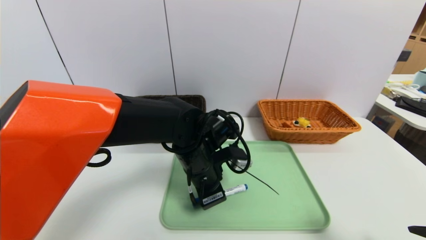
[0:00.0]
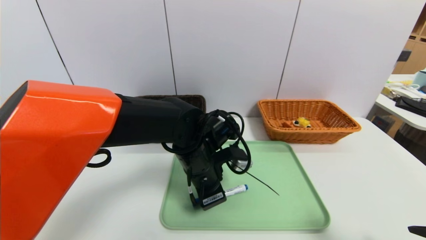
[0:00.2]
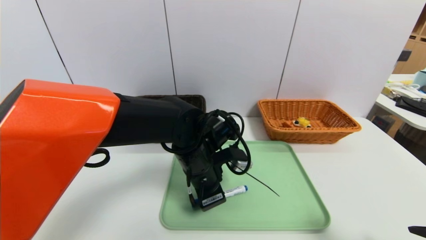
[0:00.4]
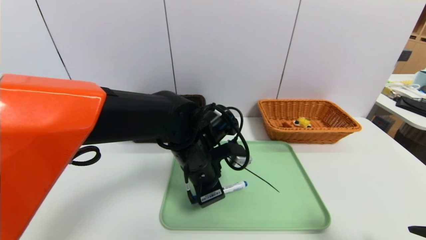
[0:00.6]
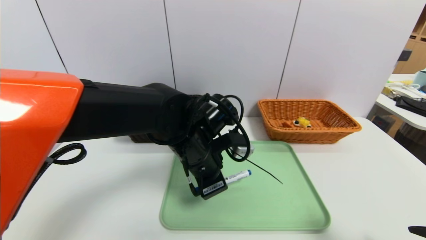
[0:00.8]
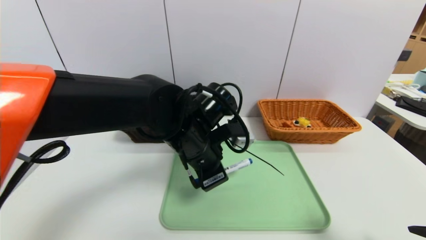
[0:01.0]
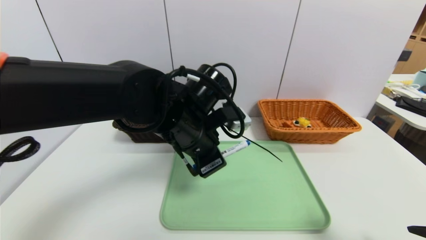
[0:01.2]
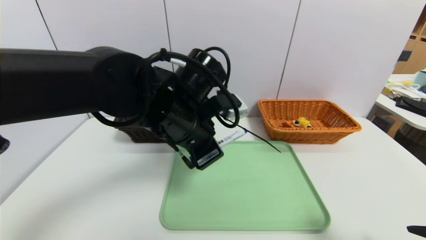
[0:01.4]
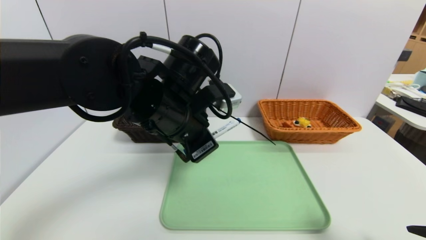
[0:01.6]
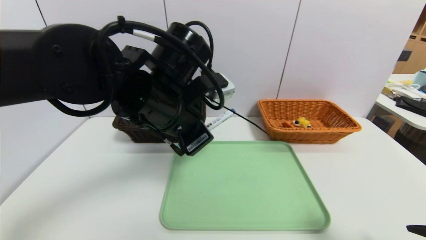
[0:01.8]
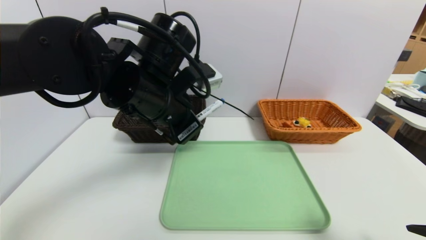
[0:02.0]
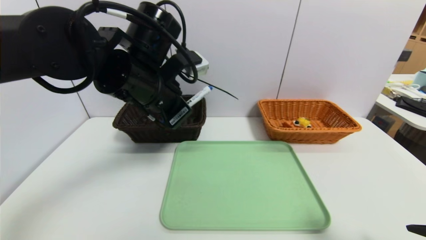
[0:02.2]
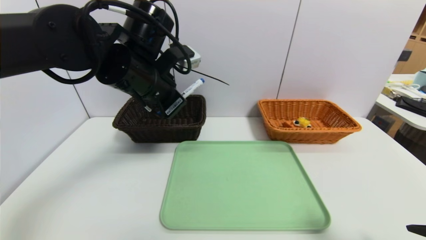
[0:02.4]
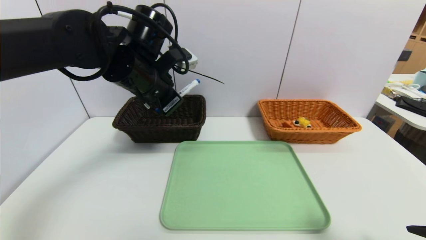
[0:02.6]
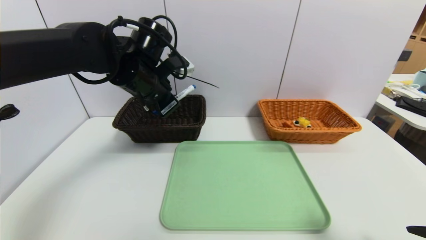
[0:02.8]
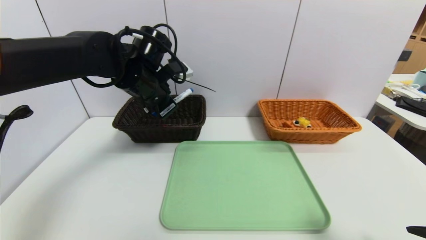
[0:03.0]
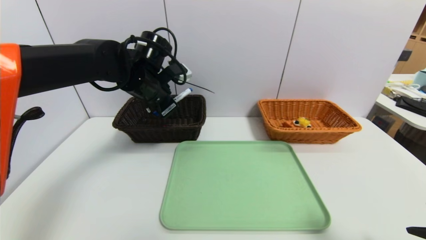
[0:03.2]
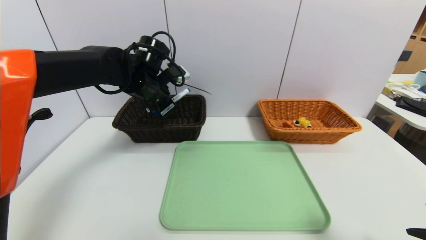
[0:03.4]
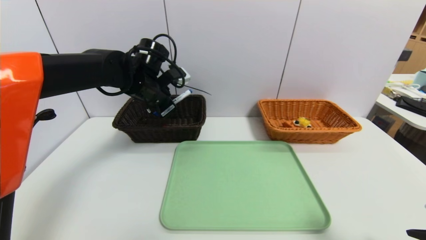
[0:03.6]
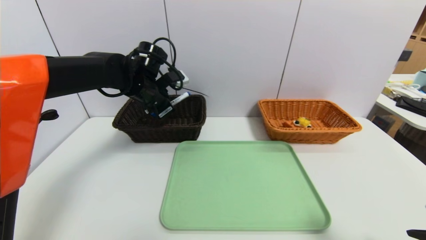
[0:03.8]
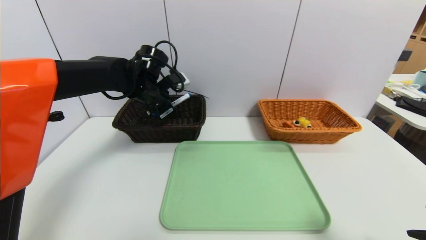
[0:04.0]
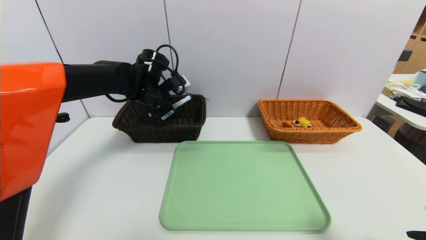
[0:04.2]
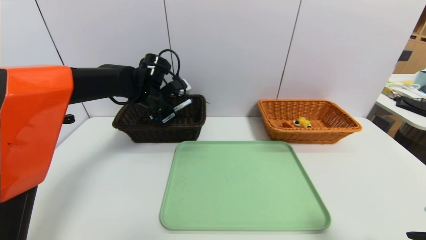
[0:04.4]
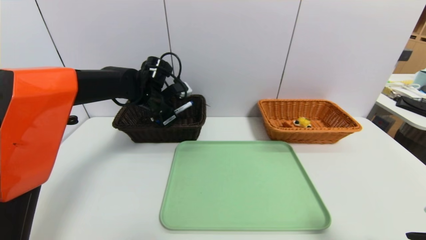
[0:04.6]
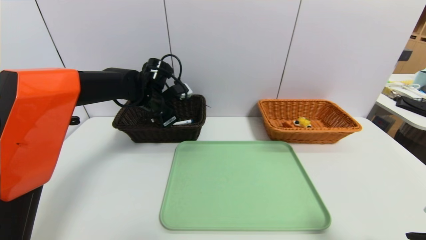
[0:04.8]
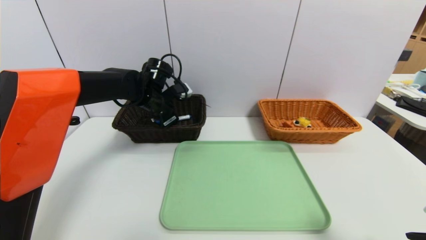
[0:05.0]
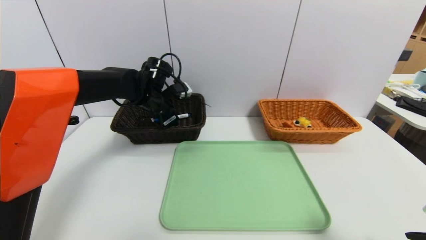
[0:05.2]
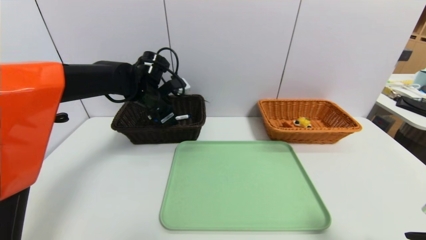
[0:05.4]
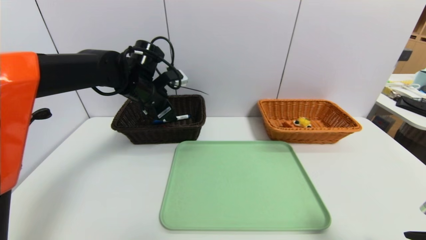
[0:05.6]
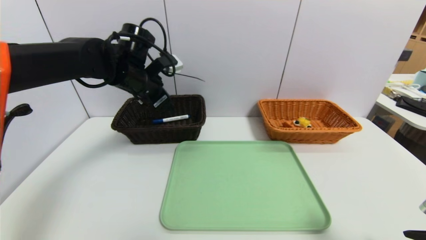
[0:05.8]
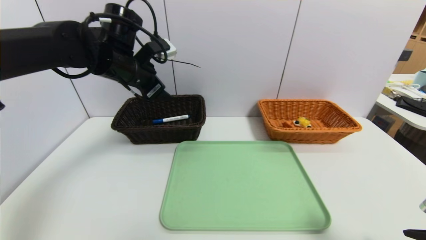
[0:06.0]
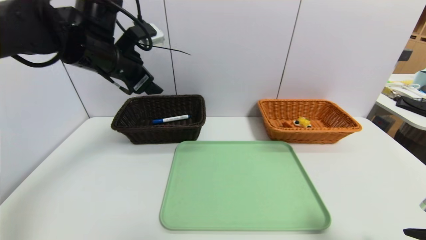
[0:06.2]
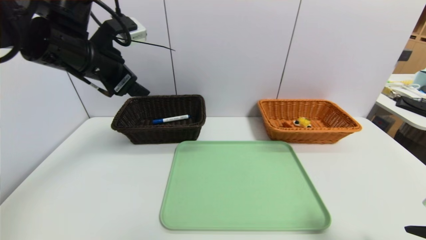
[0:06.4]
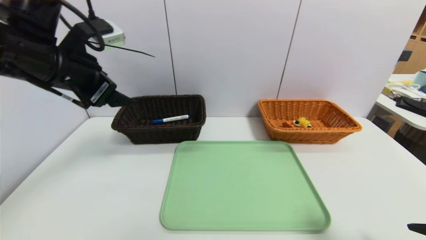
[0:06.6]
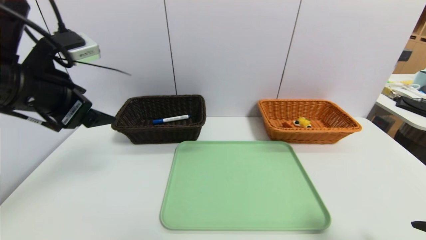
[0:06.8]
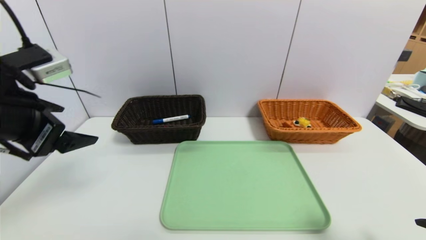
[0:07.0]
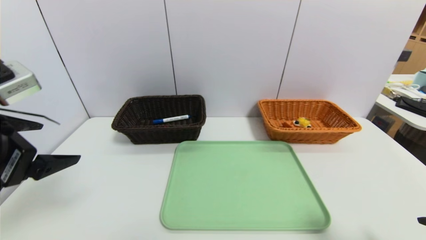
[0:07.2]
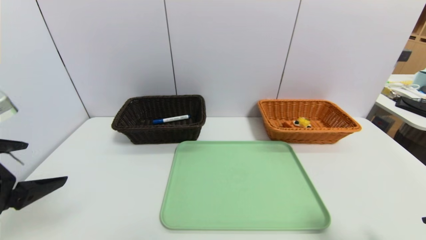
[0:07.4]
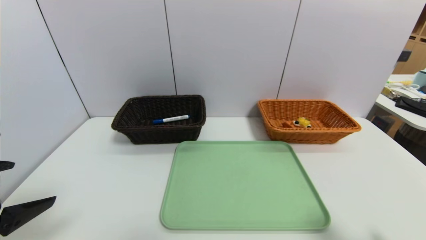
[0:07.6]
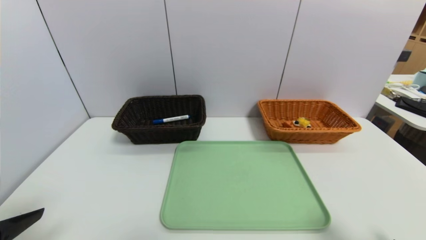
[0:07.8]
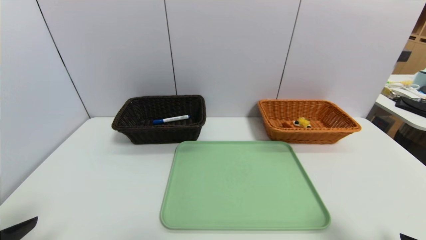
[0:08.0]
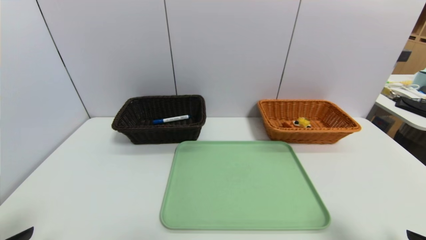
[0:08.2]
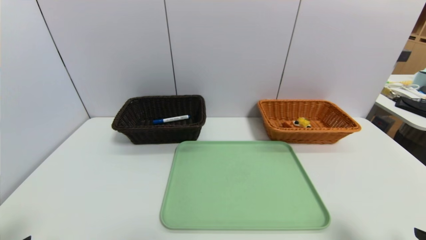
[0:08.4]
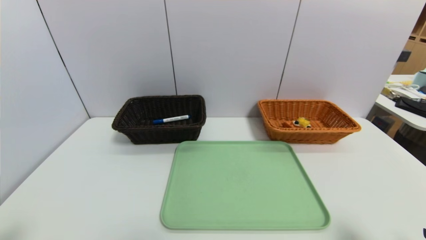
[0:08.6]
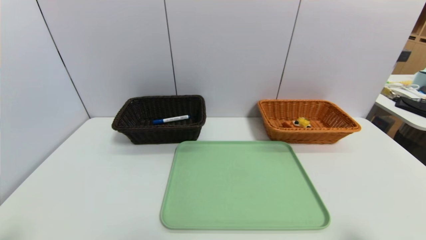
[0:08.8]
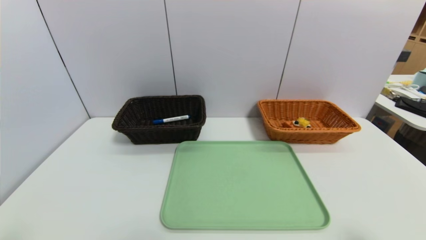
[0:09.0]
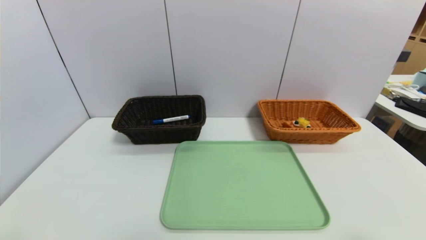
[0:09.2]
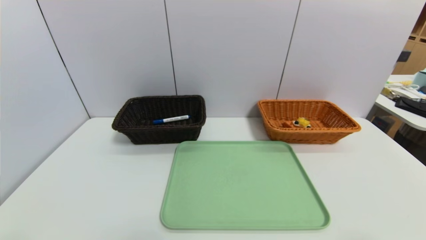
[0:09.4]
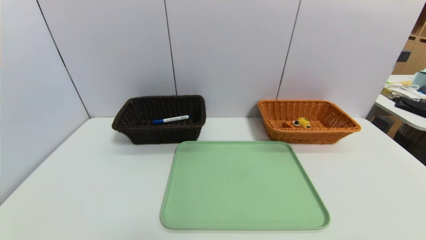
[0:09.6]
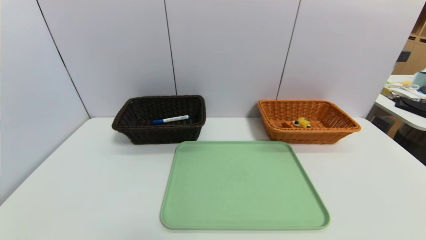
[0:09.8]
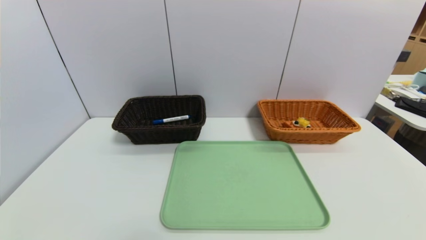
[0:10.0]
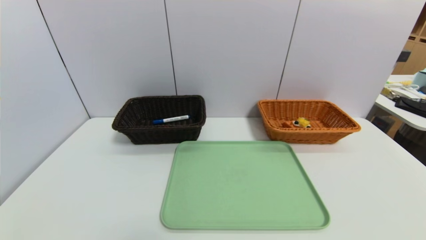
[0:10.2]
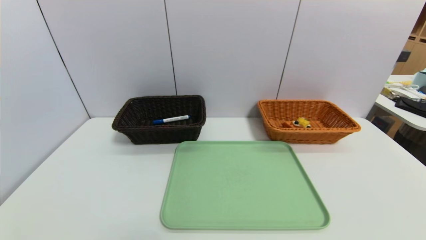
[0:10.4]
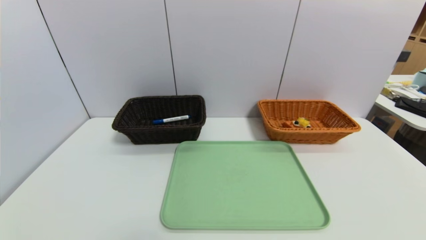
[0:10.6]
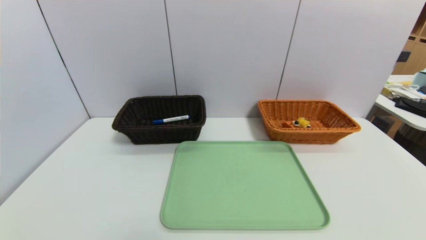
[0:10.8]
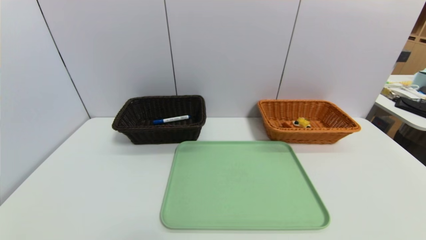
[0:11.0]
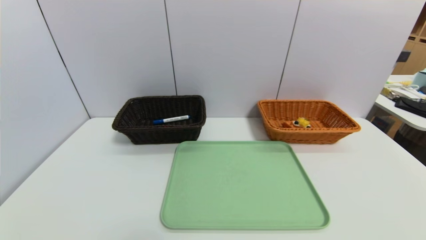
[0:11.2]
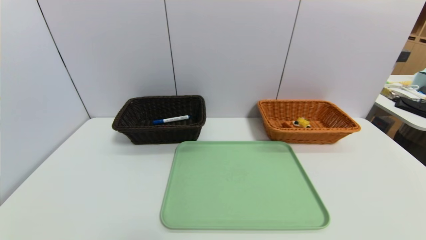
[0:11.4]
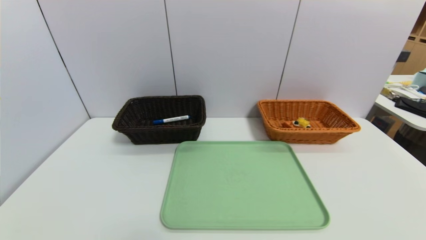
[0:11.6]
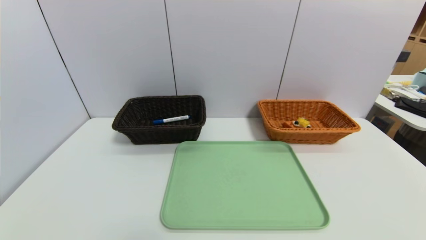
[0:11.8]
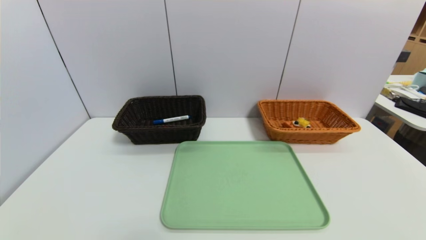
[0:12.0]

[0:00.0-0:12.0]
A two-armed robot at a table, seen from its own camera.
Task of the whole recording: place the food in the right basket with the right gripper, and place the non food items in the left basket with the left gripper.
Step, 0:00.0 to 0:05.4: Grasp the blue marker pen and put it in the left basket.
0:00.0 to 0:01.6: The left gripper goes roughly 10 cm upward.
0:01.6 to 0:03.0: The left gripper goes about 15 cm forward and to the left.
0:03.0 to 0:04.4: The left gripper is displaced forward and downward by roughly 10 cm.
0:04.4 to 0:06.0: The left gripper is displaced upward and backward by roughly 10 cm, and opens up.
0:06.0 to 0:07.6: The left gripper shifts about 30 cm backward.
0:07.6 to 0:09.0: The left gripper travels backward and downward by roughly 10 cm.
